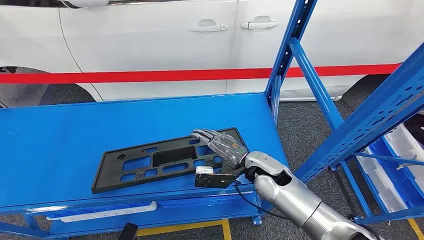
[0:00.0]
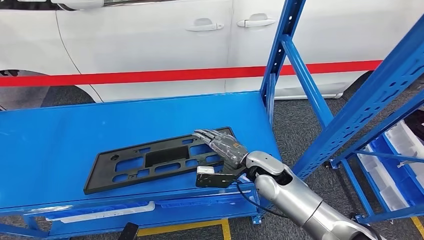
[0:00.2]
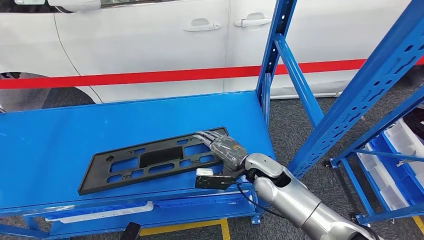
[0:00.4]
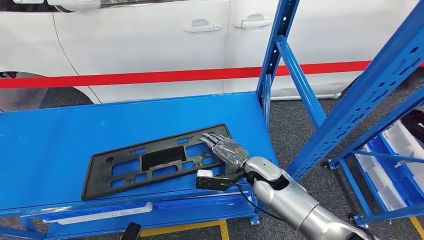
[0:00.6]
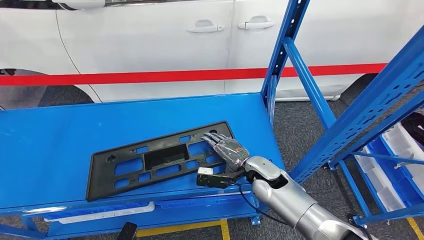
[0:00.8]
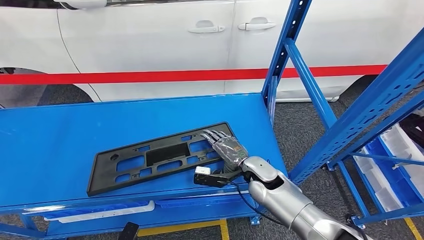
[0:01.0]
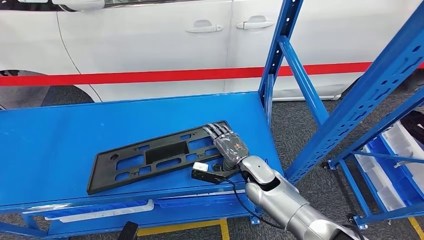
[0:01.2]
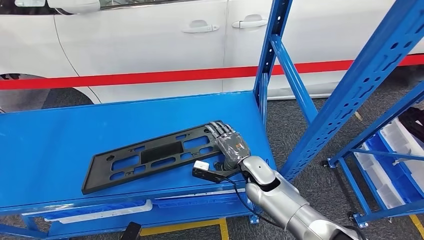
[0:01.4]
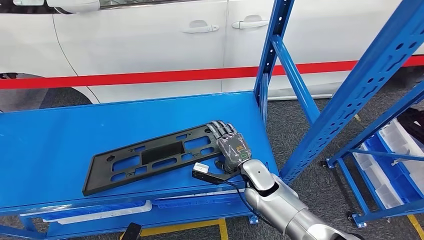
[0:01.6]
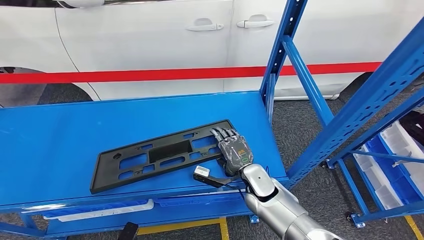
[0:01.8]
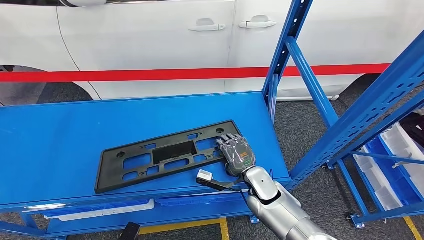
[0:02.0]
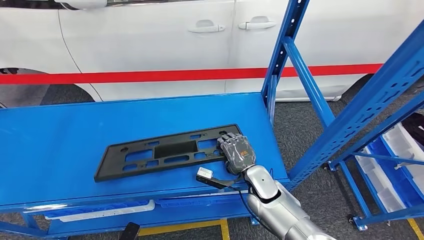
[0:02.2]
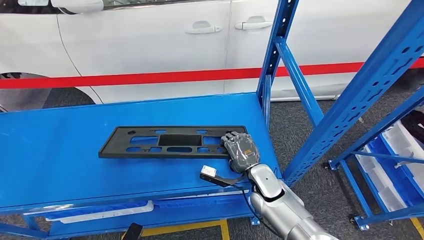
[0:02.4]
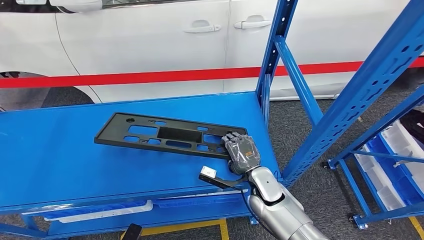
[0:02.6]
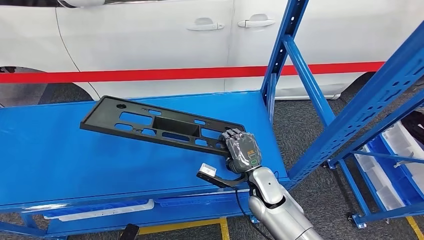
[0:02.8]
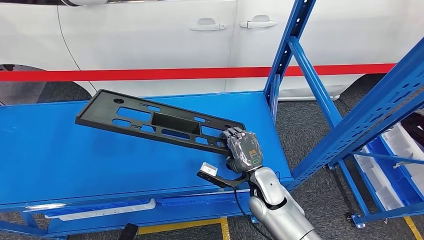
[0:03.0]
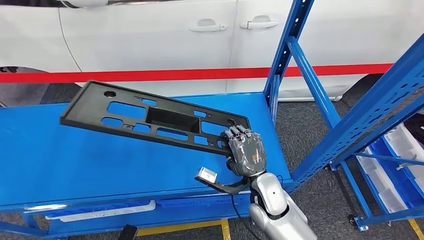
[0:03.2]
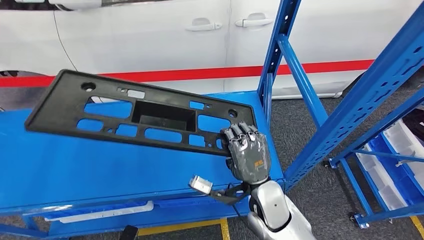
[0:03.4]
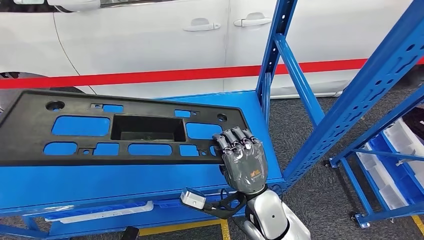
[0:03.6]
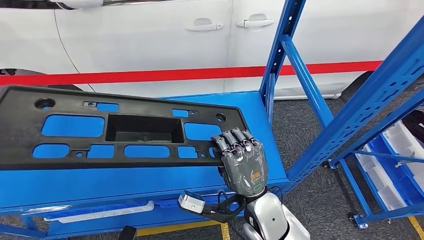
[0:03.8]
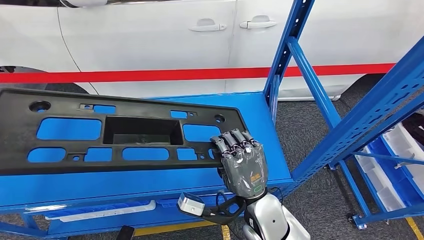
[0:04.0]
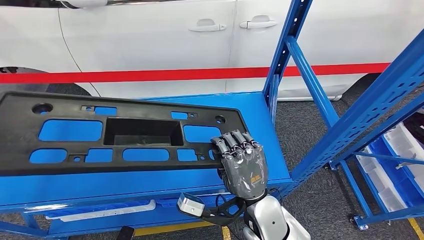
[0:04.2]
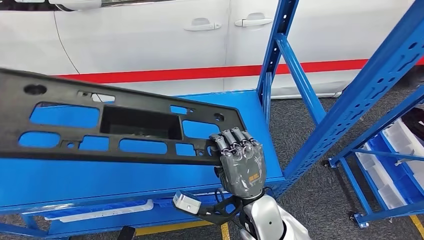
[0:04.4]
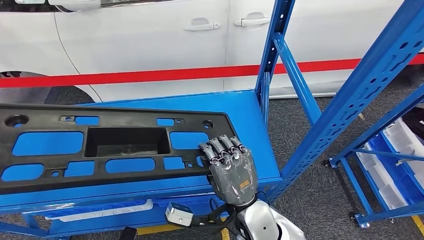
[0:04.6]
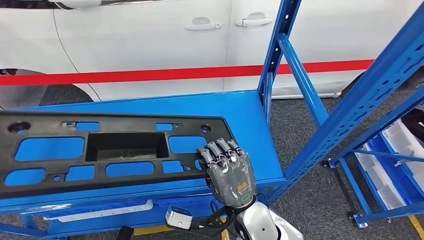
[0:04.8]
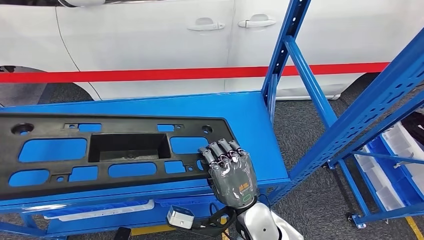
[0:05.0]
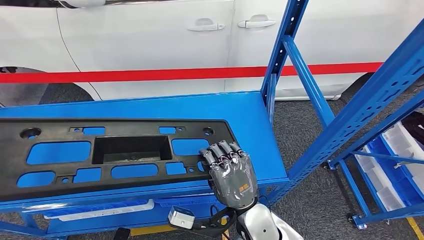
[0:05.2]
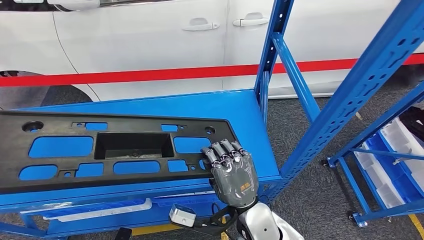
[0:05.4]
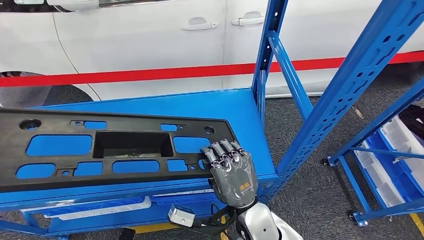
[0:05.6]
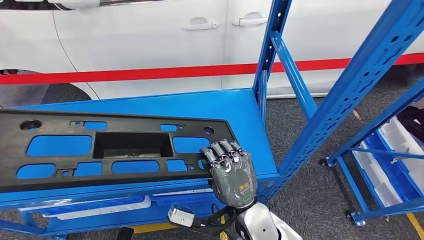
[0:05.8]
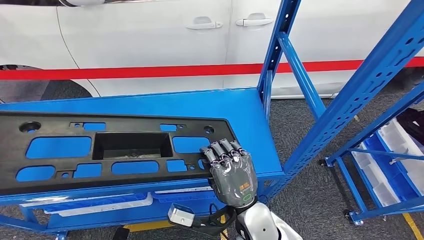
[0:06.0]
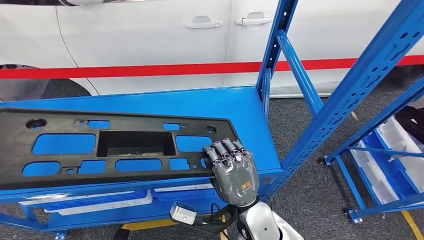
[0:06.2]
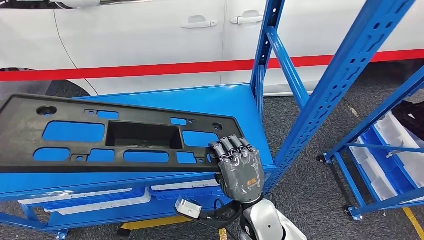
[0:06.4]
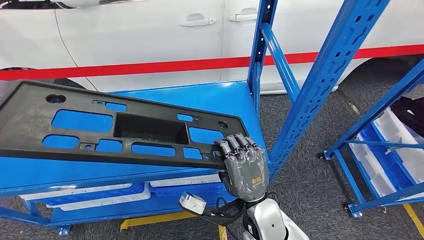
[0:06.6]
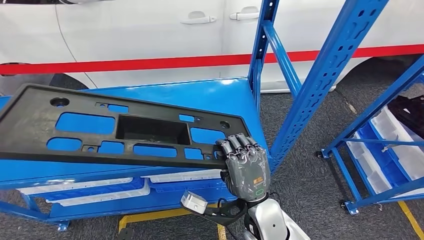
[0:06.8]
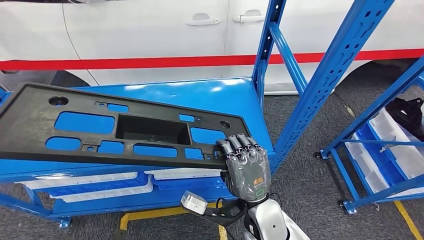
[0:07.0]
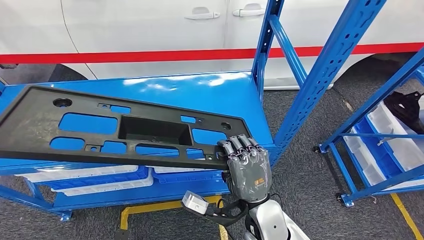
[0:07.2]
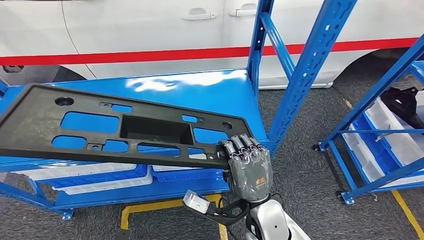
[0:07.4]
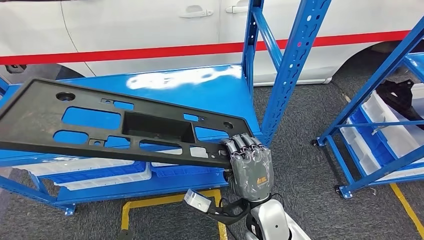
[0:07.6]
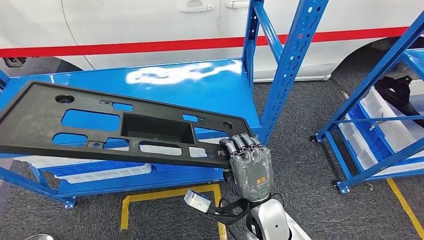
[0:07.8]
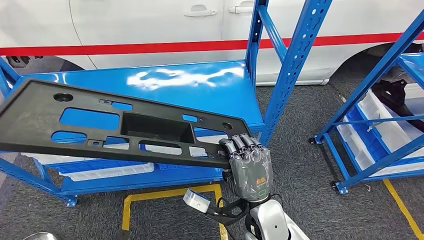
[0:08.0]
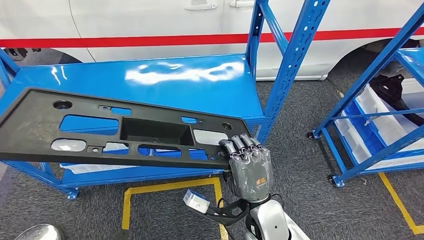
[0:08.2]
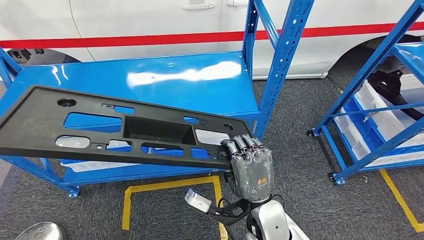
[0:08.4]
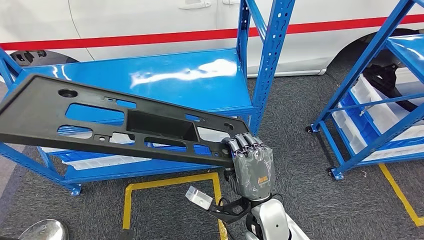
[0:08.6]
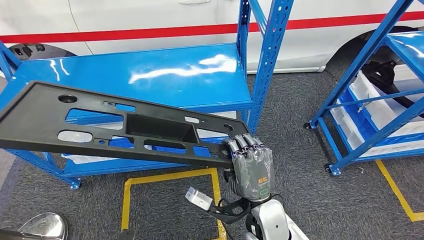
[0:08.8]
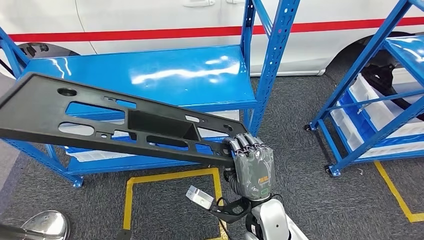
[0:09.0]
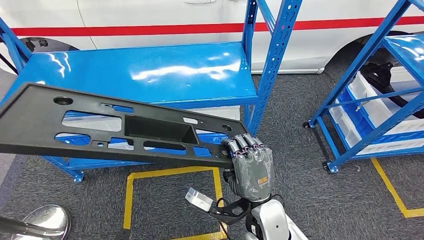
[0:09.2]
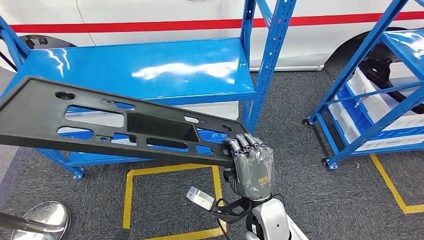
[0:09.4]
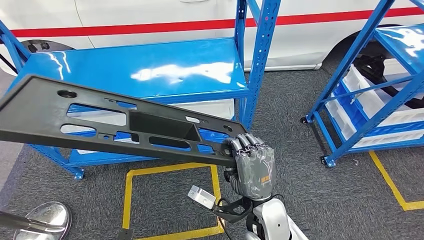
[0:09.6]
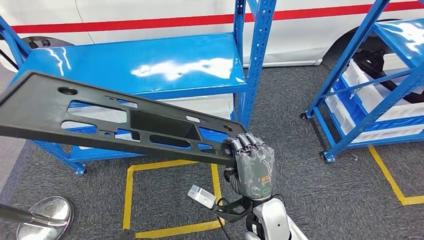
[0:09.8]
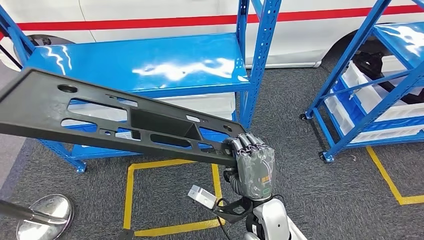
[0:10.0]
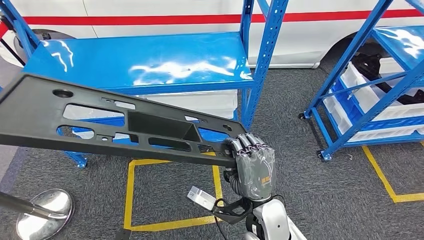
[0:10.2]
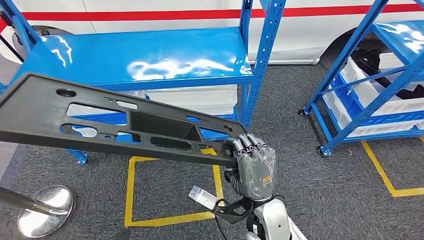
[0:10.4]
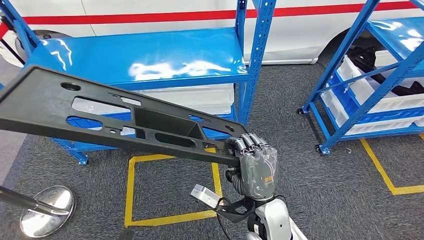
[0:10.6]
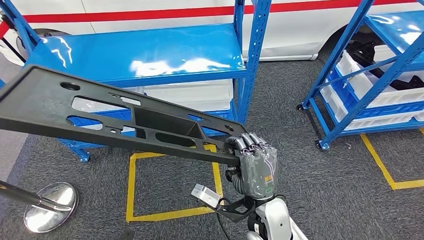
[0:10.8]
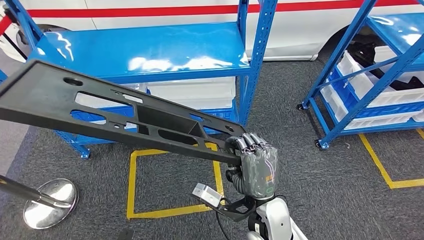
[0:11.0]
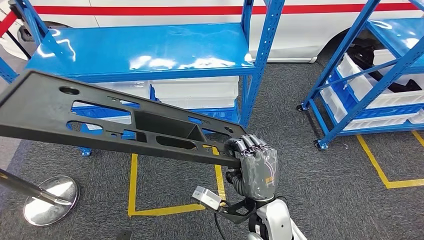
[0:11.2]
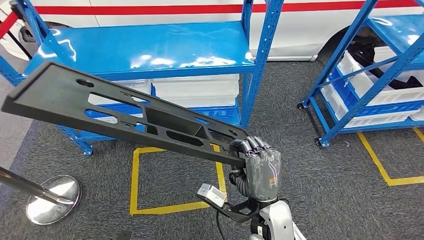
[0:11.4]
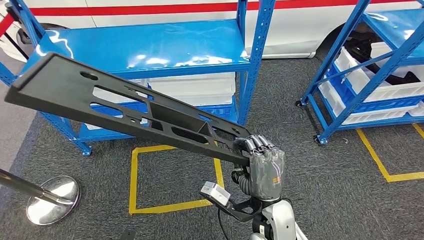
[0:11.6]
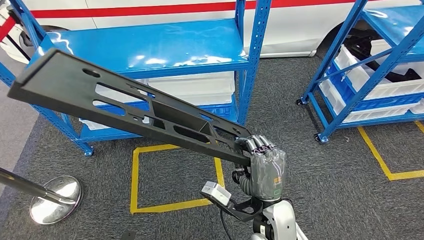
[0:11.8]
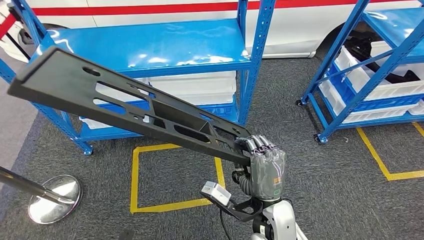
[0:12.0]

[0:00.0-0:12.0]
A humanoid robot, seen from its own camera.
Step, 0:00.0 to 0:06.6: Pick up the large material from the shelf.

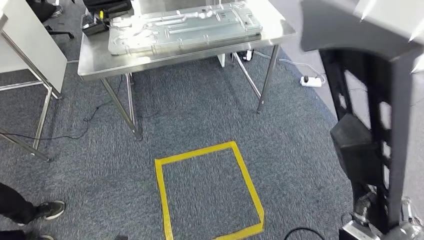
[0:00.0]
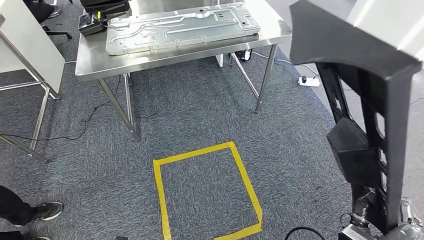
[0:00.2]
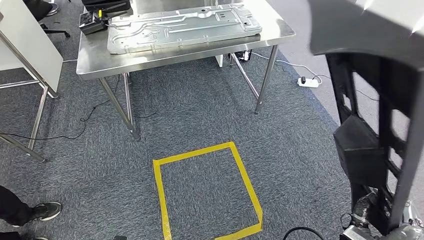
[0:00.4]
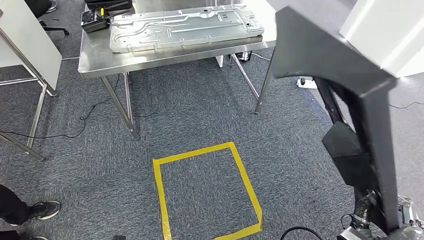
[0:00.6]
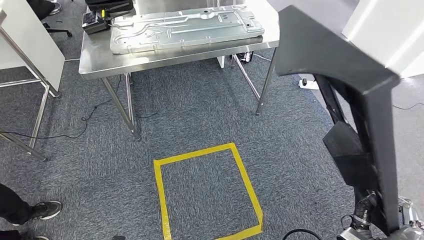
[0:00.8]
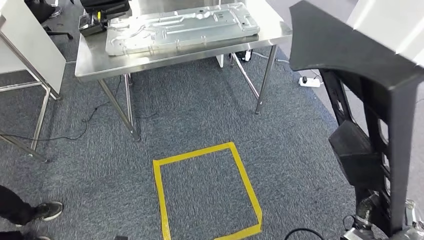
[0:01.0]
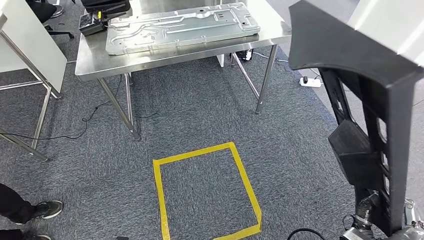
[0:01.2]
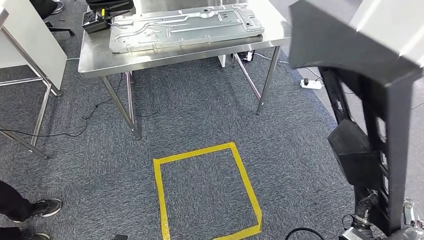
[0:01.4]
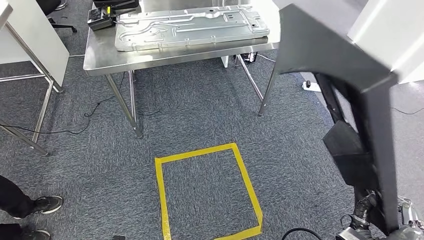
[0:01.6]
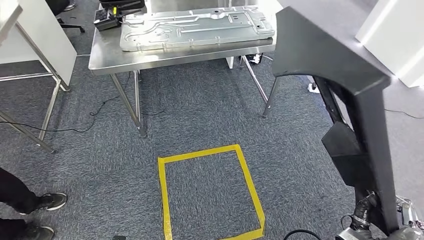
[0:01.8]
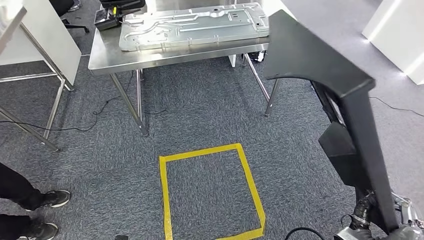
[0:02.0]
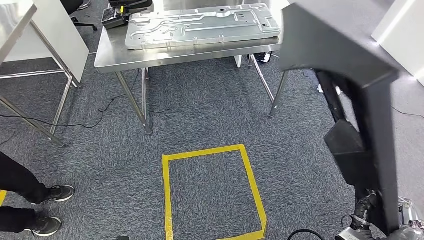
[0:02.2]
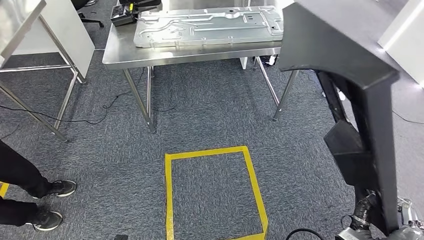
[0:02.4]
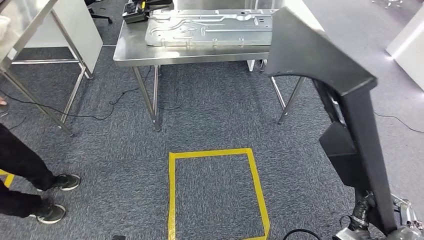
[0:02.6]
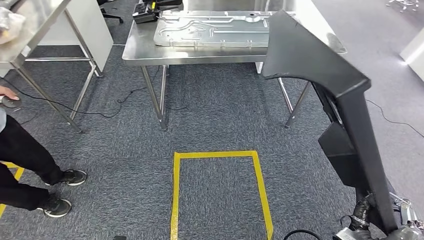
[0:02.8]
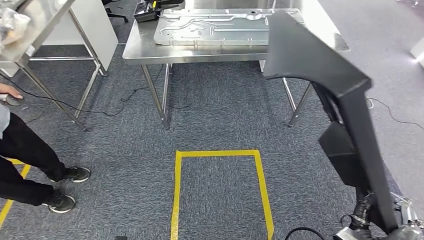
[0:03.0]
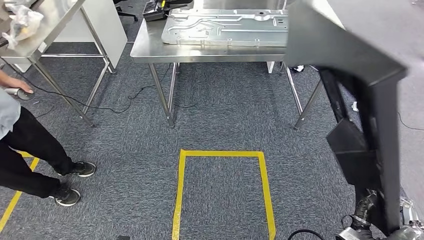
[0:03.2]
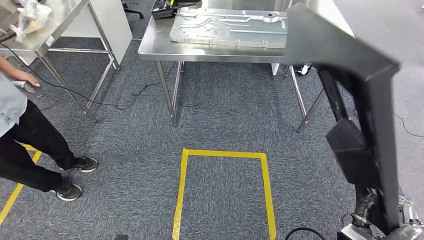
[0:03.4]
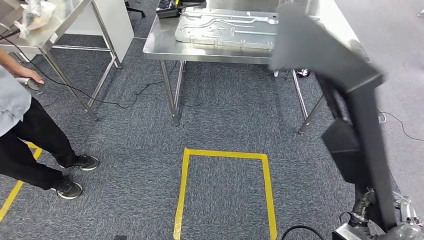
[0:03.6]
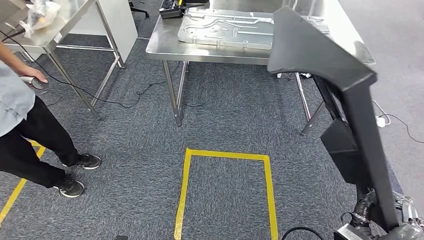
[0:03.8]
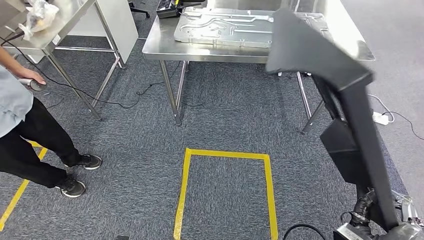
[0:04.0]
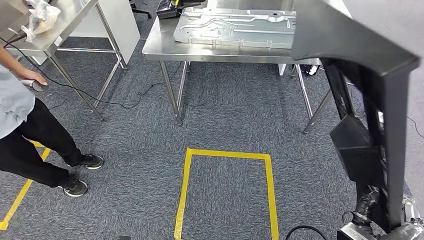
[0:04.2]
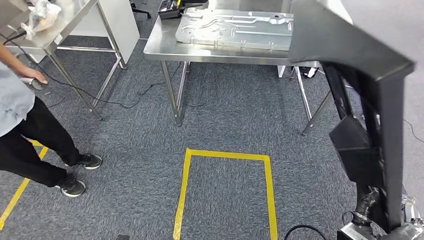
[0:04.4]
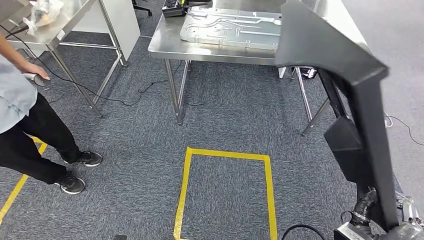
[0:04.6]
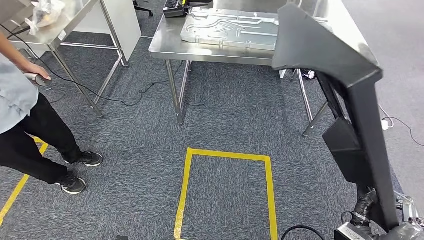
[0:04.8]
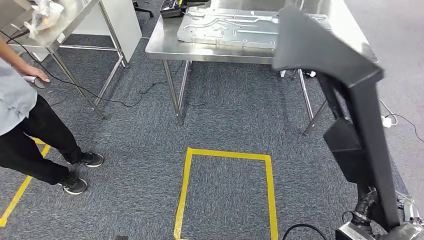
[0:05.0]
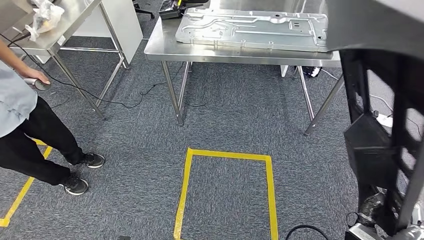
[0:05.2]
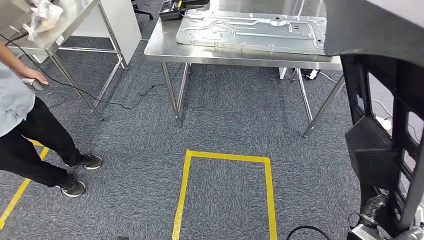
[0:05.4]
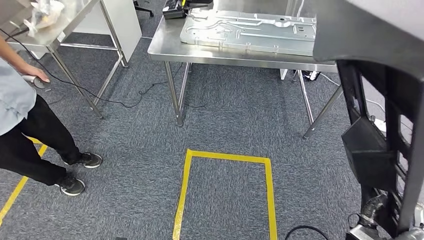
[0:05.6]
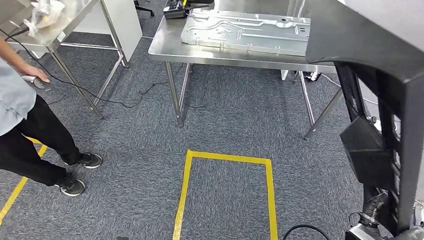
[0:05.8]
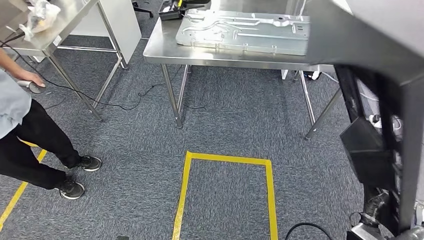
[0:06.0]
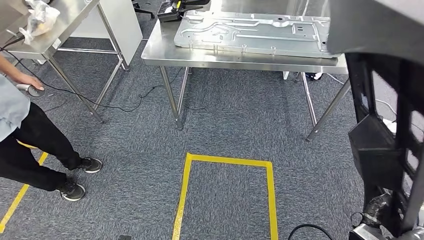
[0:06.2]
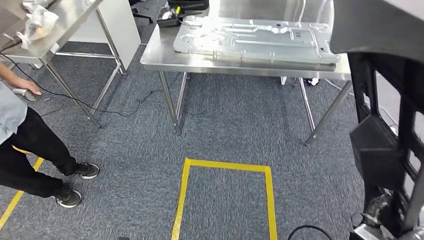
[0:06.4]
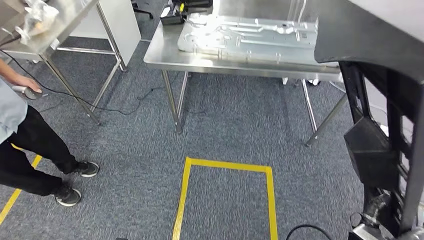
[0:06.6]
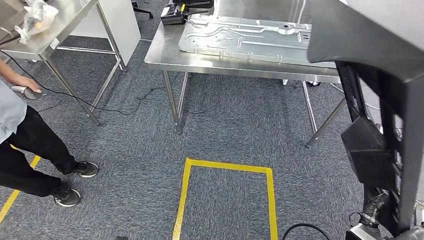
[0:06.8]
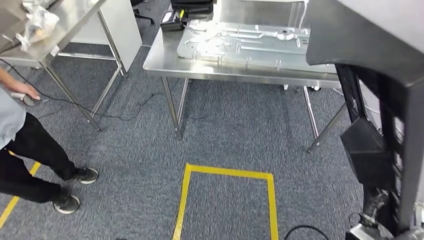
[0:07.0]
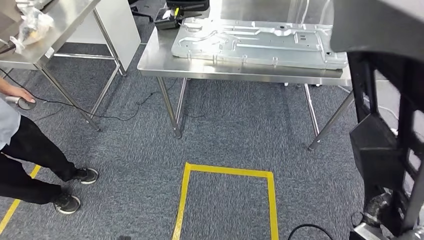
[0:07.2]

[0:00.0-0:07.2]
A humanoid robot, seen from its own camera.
0:00.0 to 0:01.4: Both hands stay put.
